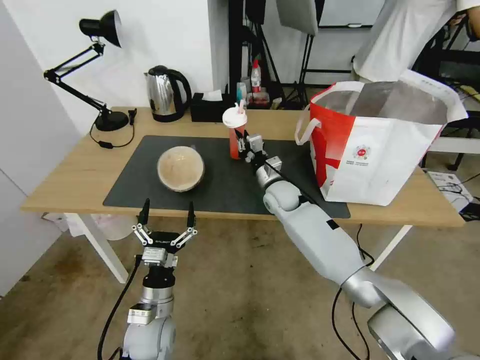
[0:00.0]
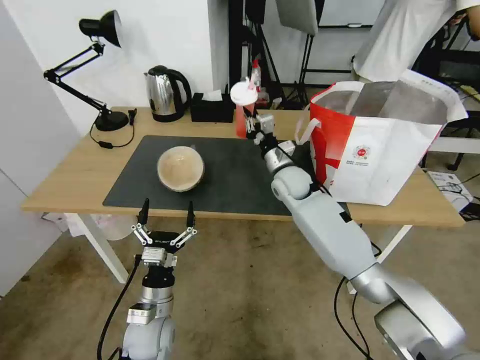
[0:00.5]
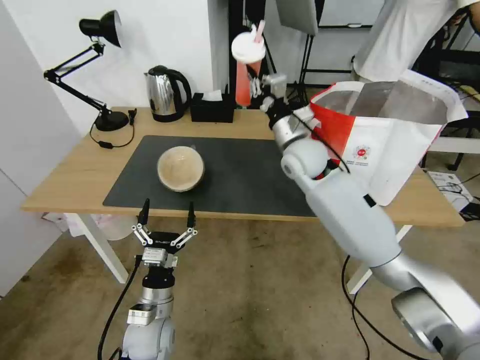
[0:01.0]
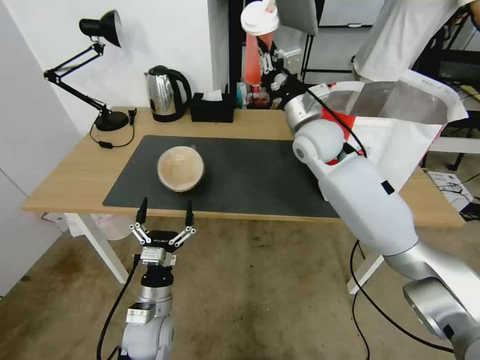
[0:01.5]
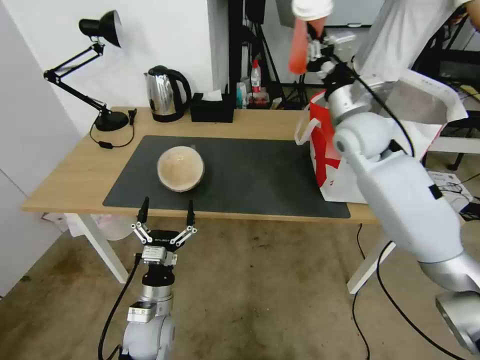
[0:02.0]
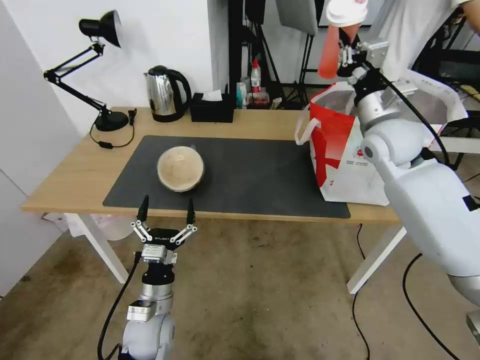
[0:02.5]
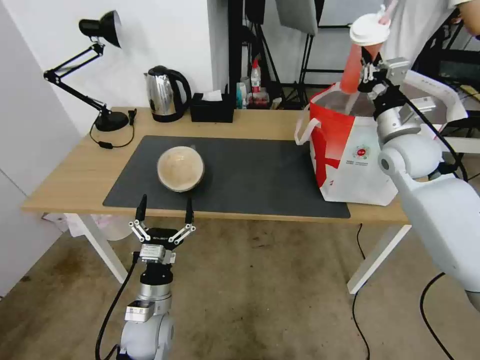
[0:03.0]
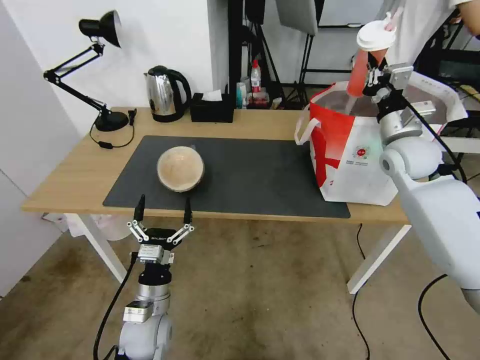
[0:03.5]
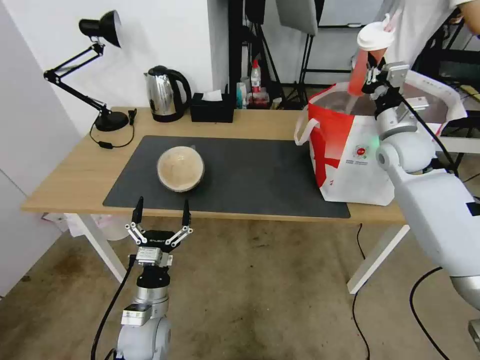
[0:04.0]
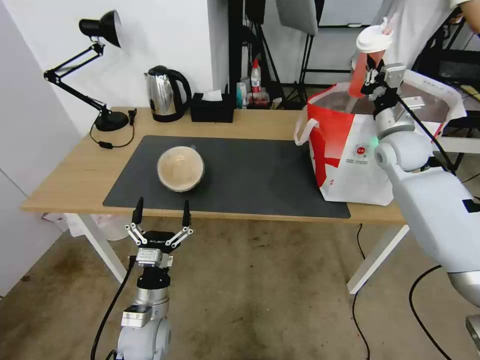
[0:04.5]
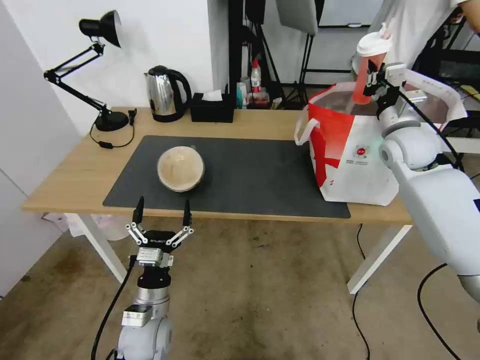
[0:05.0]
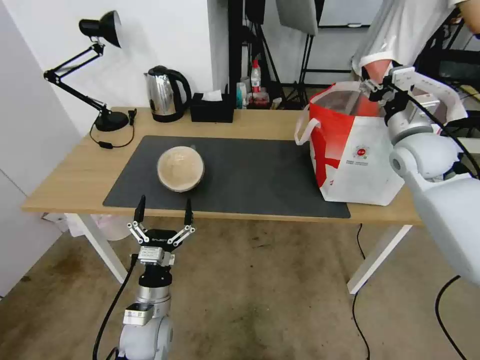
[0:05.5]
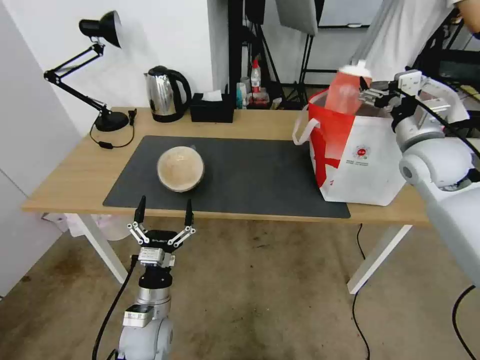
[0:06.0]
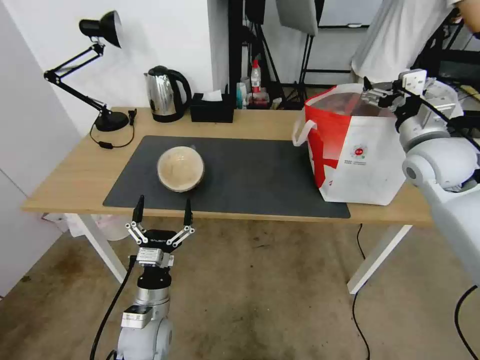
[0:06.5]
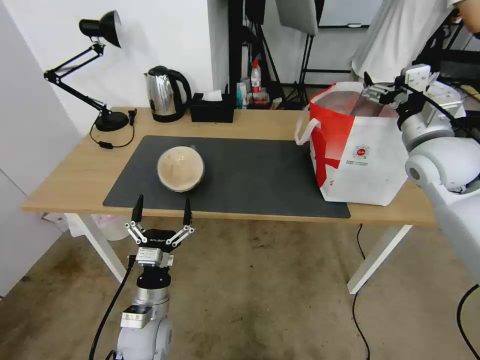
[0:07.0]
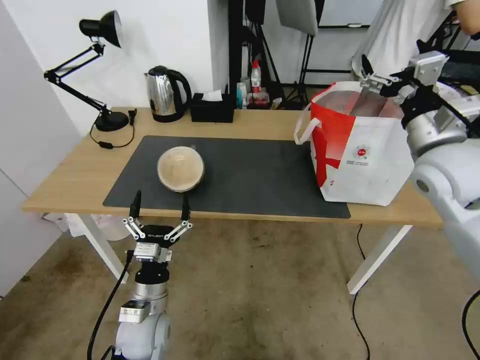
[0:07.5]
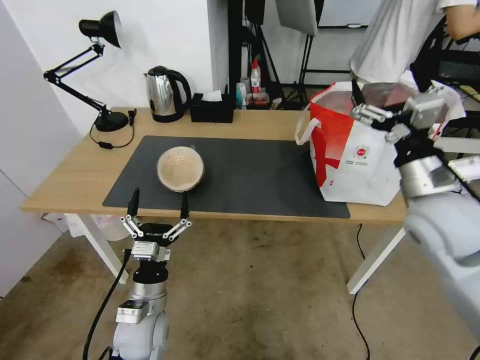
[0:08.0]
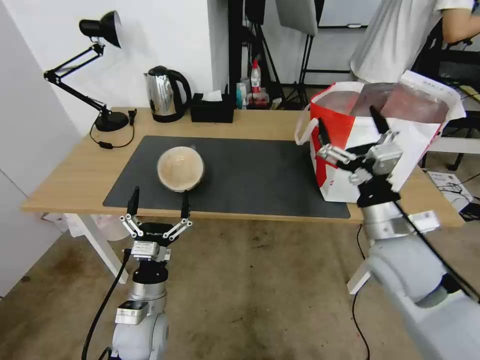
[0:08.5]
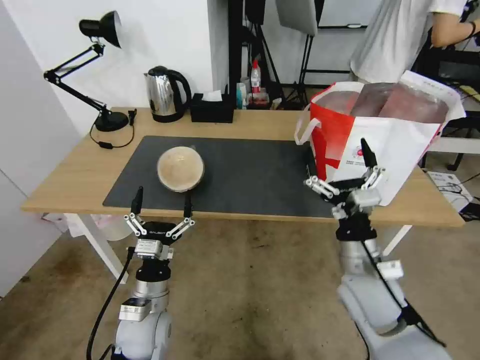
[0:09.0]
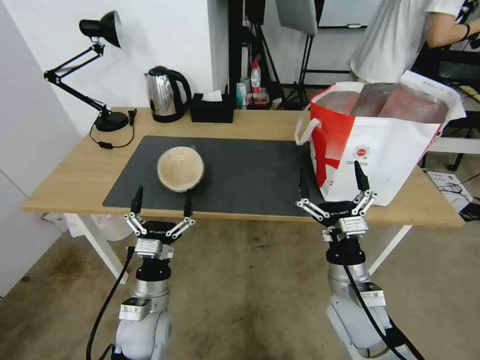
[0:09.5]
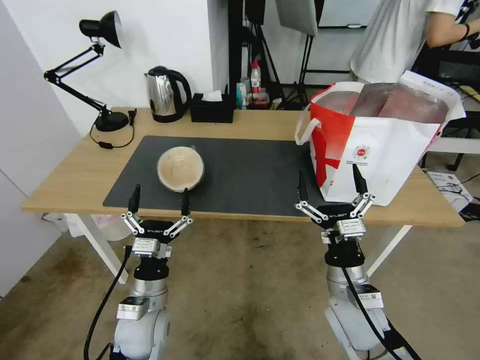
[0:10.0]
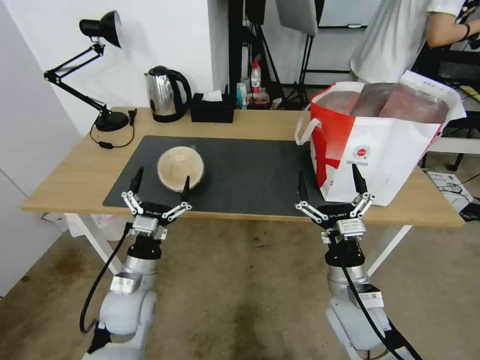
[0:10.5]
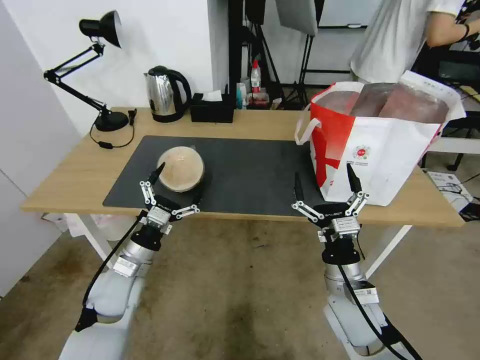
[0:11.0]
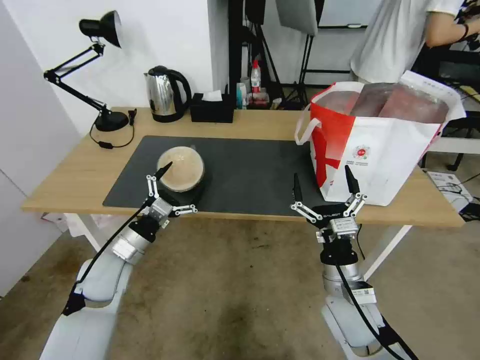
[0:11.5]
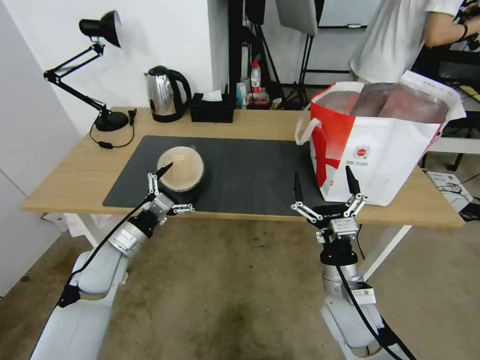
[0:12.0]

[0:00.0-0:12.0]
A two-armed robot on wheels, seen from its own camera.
Task of the whole recording: Pick up the trash from the table and place it into the takeout bag.
0:00.0 to 0:02.0: The right gripper shifts roughly 25 cm upward and to the right.
0:02.0 to 0:04.0: The right gripper goes some 15 cm to the right and downward.
0:04.0 to 0:06.0: The right gripper heads backward, covering roughly 5 cm, and opens.
0:06.0 to 0:08.0: The right gripper heads backward and to the left, covering some 15 cm.
0:08.0 to 0:10.0: The right gripper travels downward, to the left and backward by roughly 25 cm.
0:10.0 to 0:12.0: The left gripper travels to the left, forward and upward by approximately 15 cm.

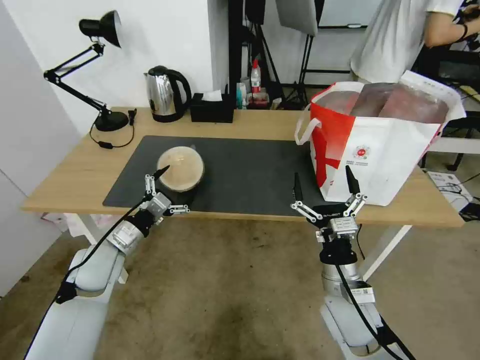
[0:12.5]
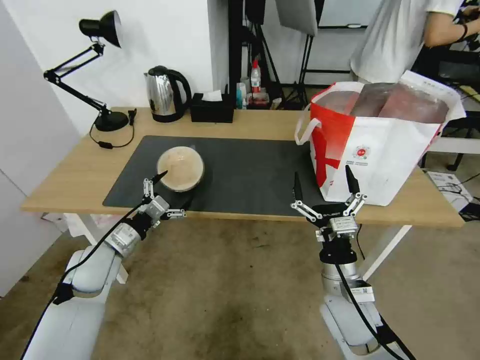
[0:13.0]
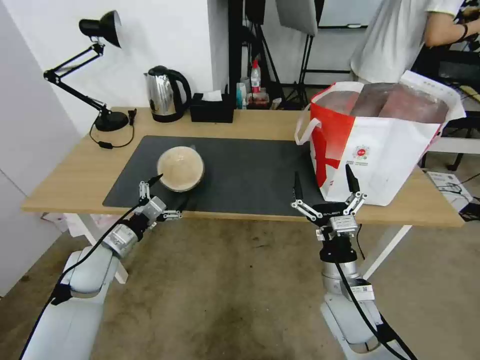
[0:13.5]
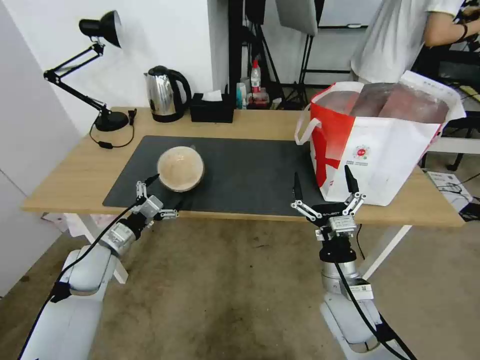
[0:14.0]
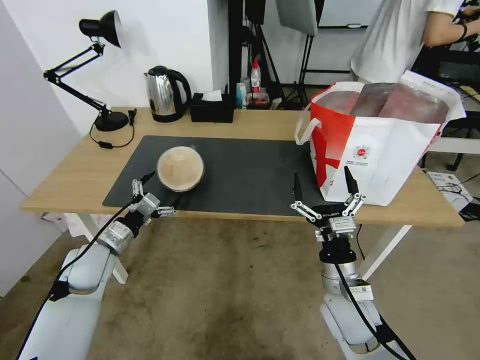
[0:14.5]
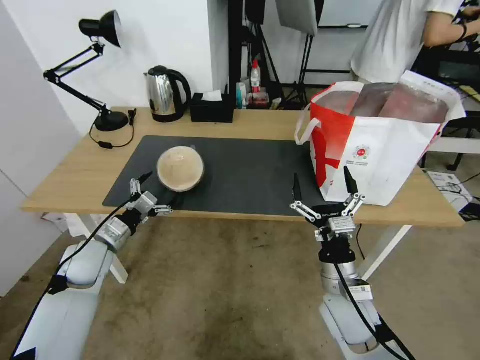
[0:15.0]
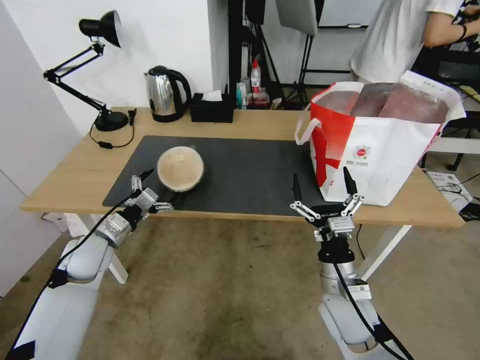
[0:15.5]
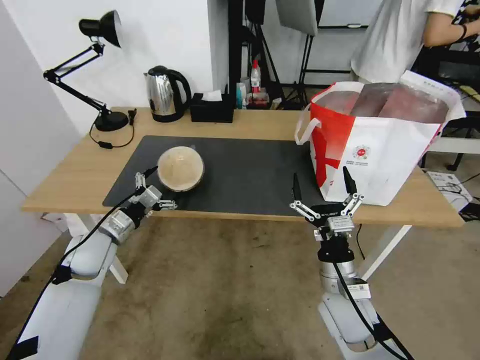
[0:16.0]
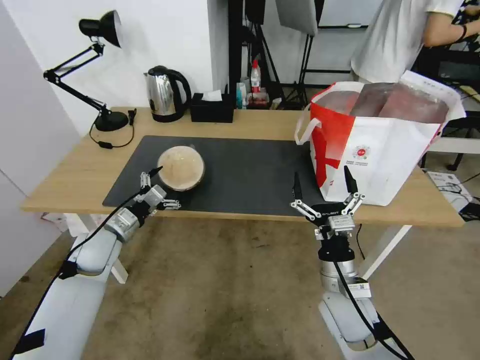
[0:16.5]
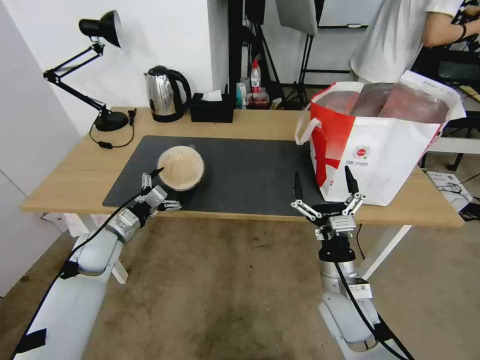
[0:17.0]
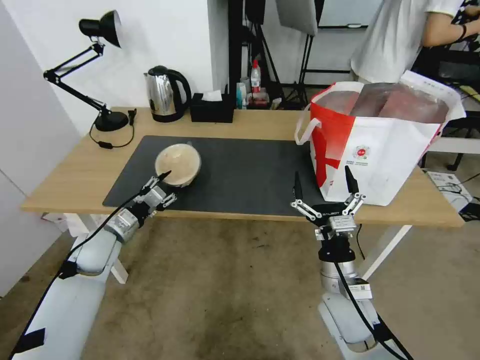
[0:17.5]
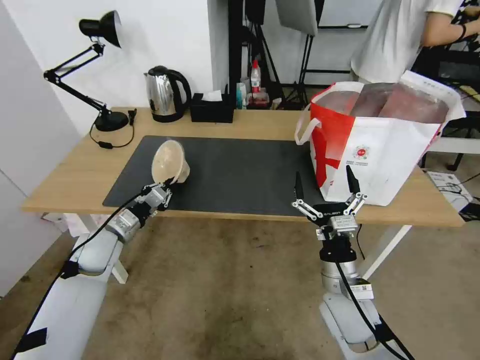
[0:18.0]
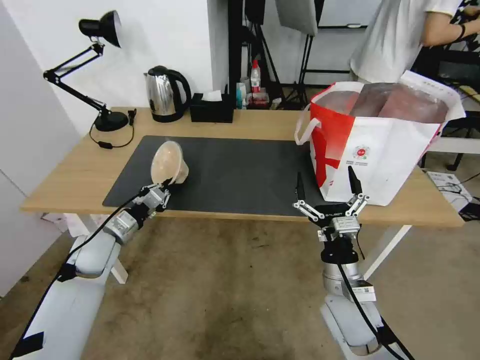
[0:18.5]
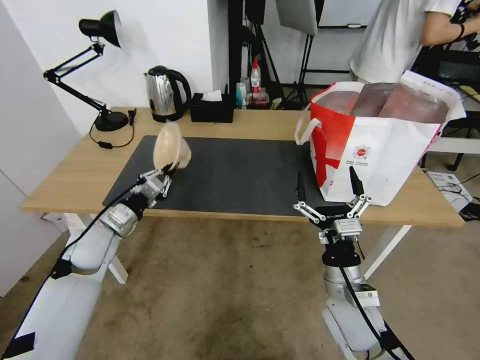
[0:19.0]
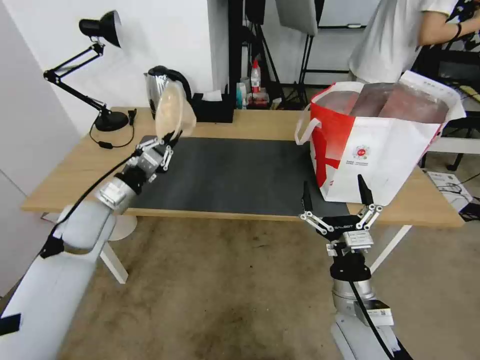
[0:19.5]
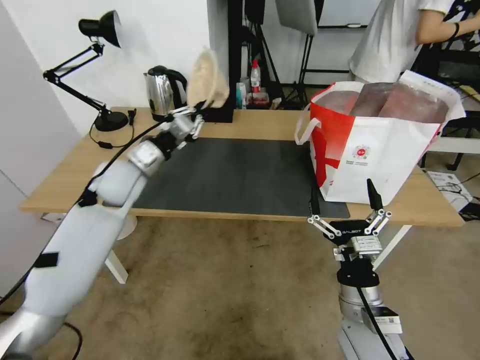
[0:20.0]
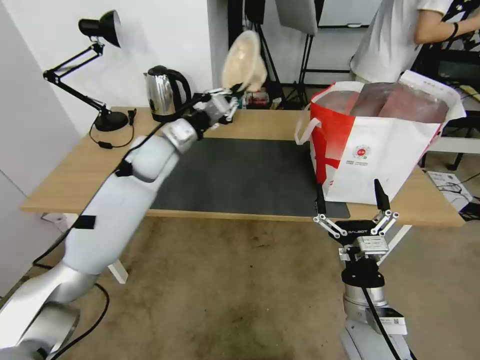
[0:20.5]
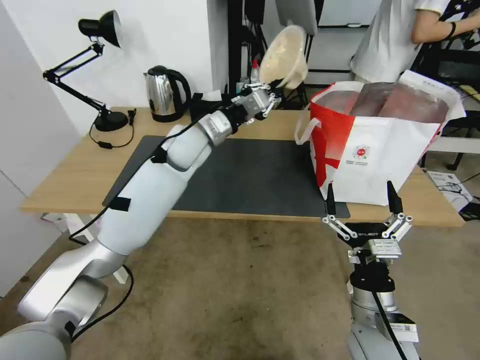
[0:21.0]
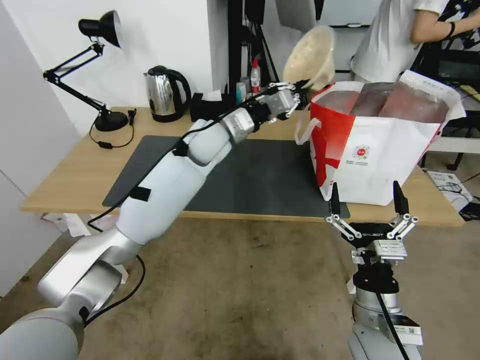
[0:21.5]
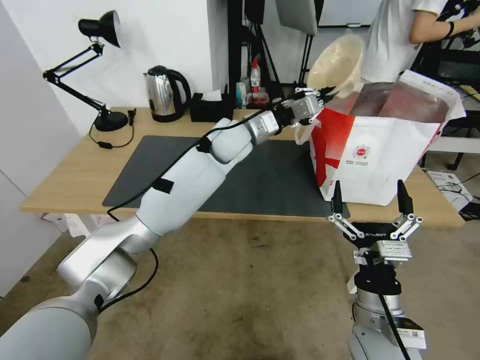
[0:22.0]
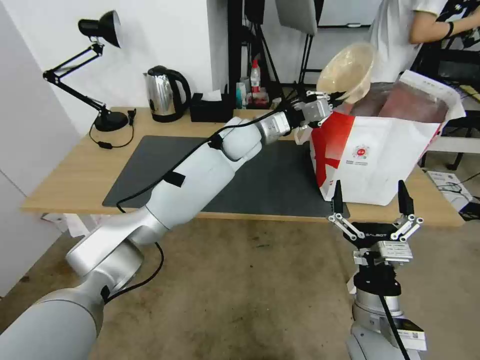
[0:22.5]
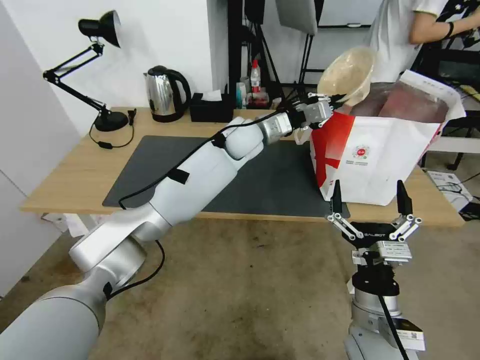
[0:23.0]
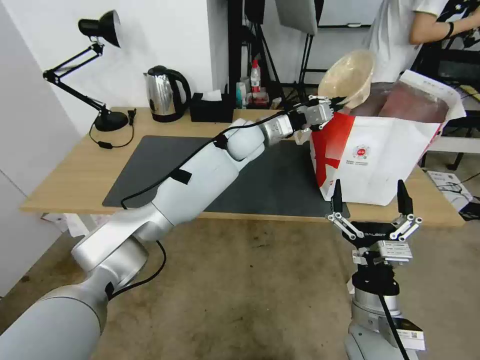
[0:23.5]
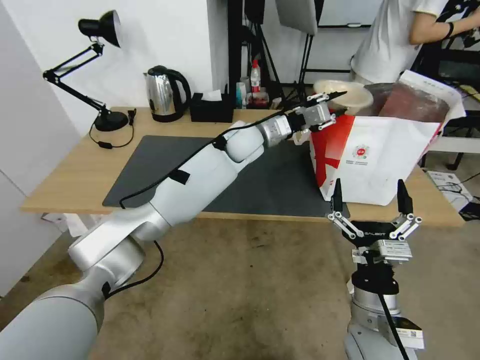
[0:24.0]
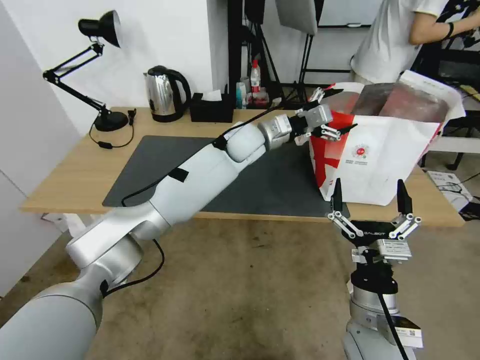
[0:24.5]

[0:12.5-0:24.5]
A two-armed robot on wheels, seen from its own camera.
Task of the whole recording: Pick up the trash from the table and place it into the takeout bag.
0:12.5 to 0:16.5: The grippers stay close to where they were, moving slightly.
0:16.5 to 0:18.5: The left gripper closes up.
0:18.5 to 0:20.5: The left gripper is displaced upward, to the right and forward by approximately 25 cm. The right gripper ends up approximately 5 cm from where it was.
0:20.5 to 0:22.5: The left gripper is displaced to the right by roughly 20 cm.
0:22.5 to 0:24.5: The left gripper opens up.

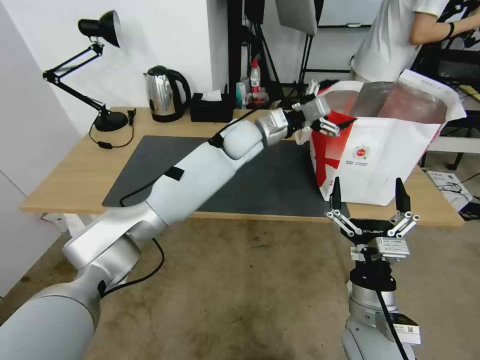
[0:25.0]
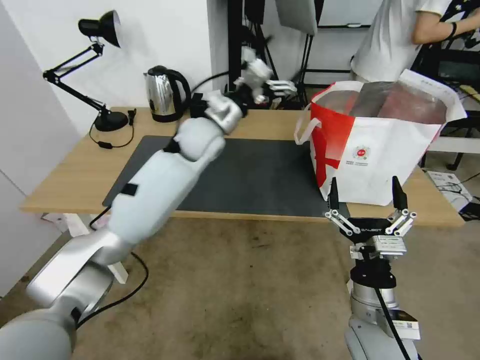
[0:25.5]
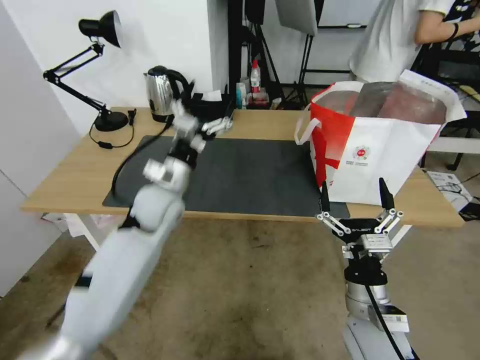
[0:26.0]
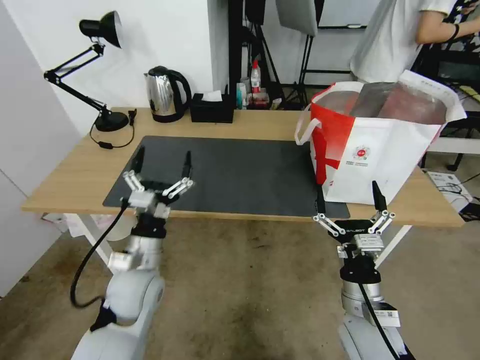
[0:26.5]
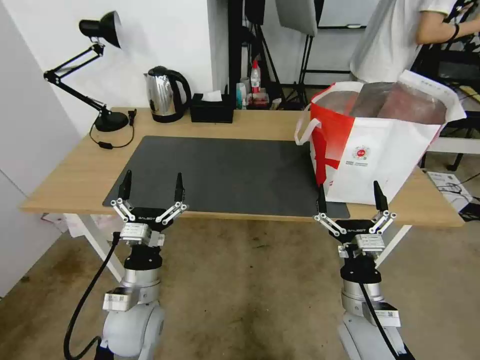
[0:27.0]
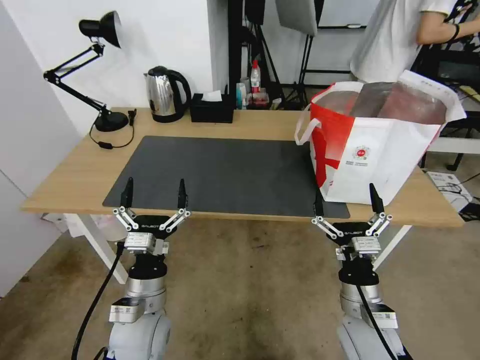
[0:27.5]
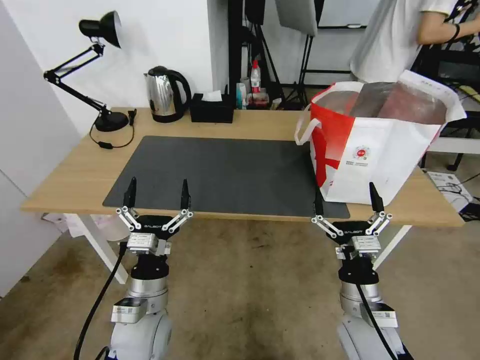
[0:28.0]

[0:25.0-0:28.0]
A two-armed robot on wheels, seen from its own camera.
Task of the whole recording: Pick up the trash from the table and place it into the takeout bag.
0:25.0 to 0:26.5: The left gripper goes roughly 40 cm backward, to the left and downward.
0:26.5 to 0:28.0: The left gripper goes roughly 5 cm backward.
